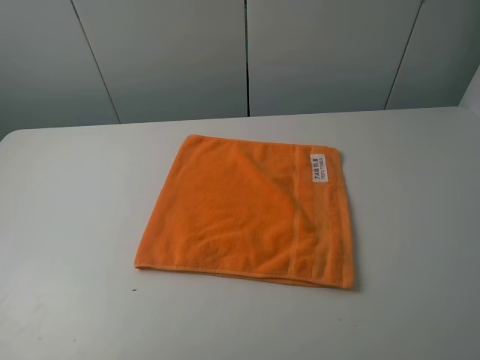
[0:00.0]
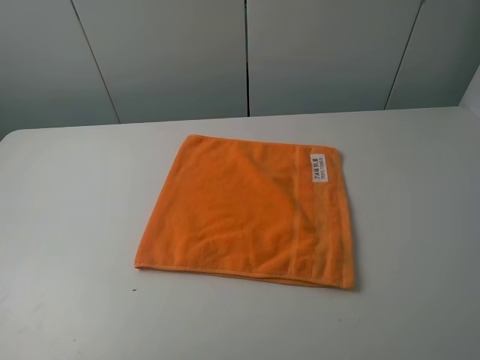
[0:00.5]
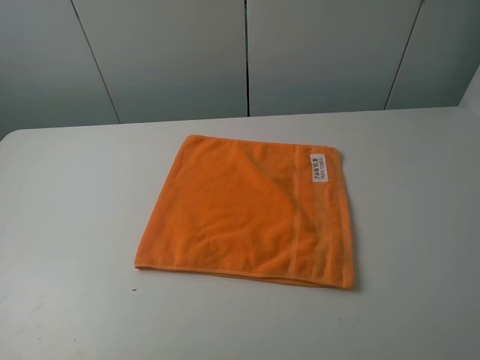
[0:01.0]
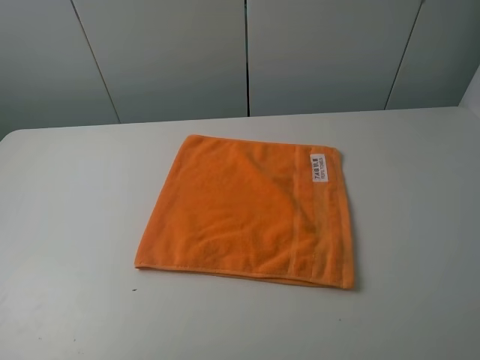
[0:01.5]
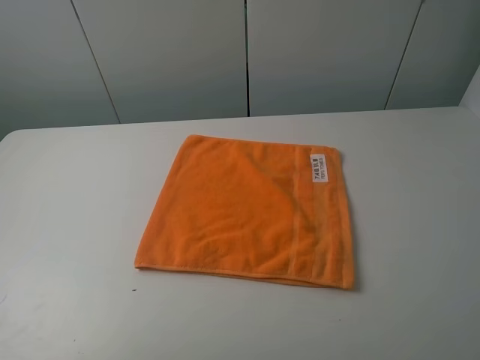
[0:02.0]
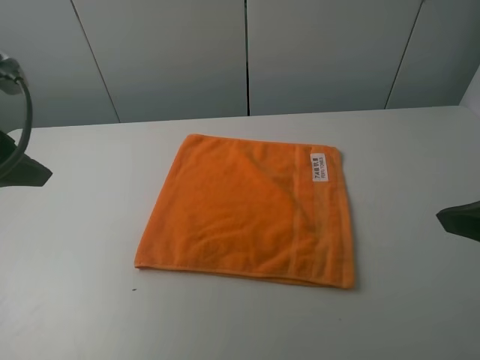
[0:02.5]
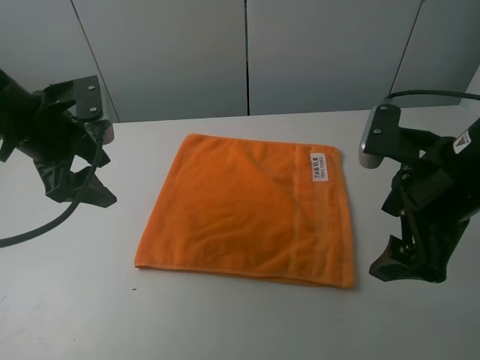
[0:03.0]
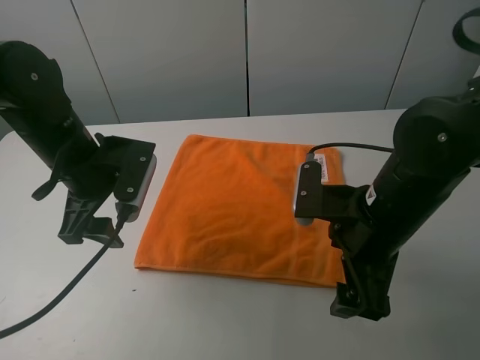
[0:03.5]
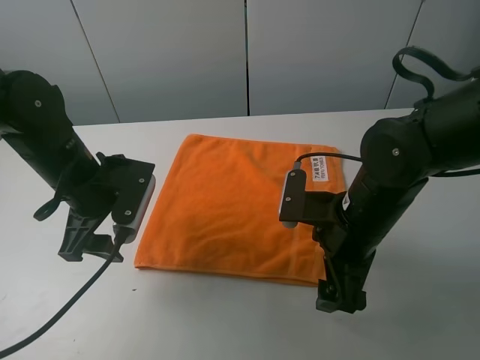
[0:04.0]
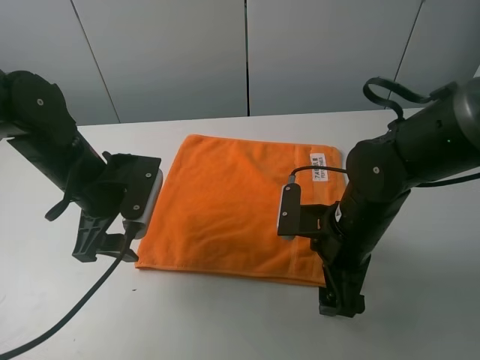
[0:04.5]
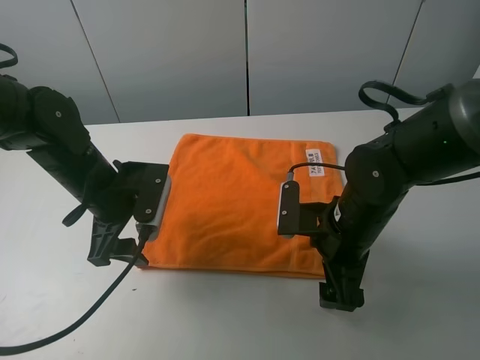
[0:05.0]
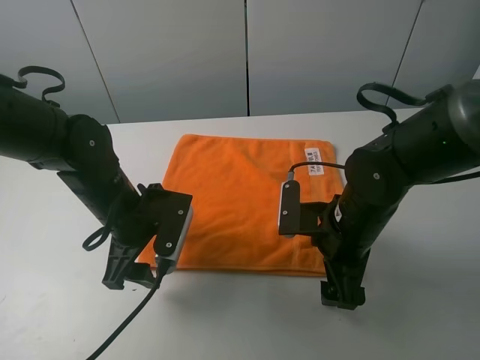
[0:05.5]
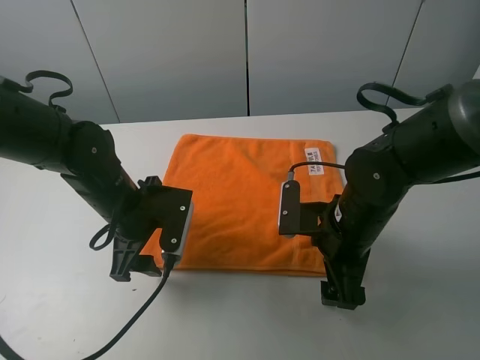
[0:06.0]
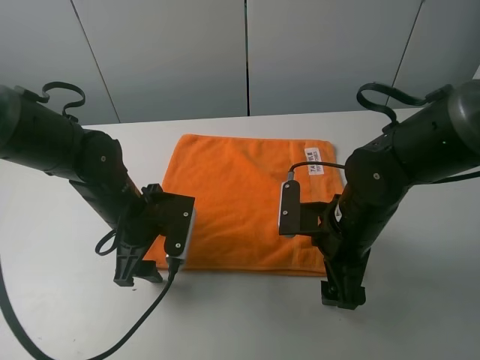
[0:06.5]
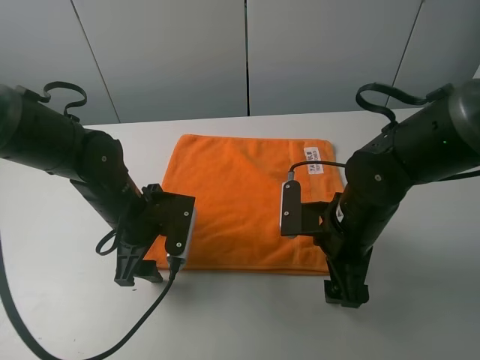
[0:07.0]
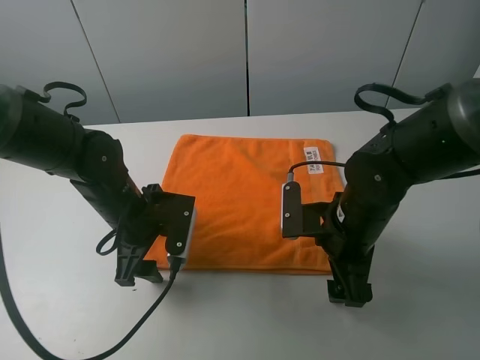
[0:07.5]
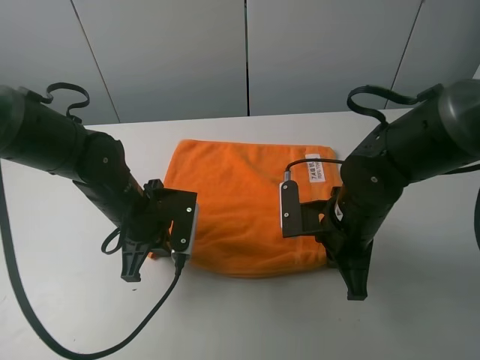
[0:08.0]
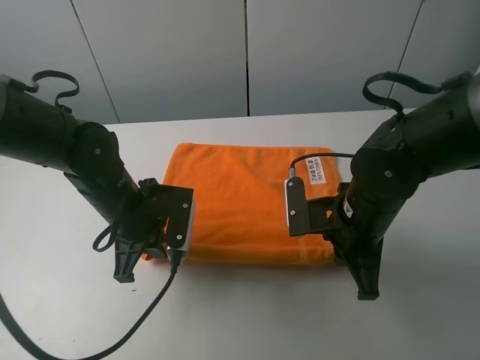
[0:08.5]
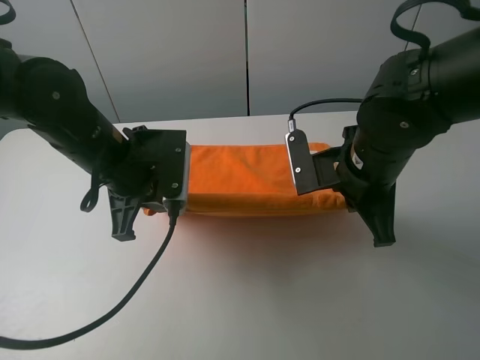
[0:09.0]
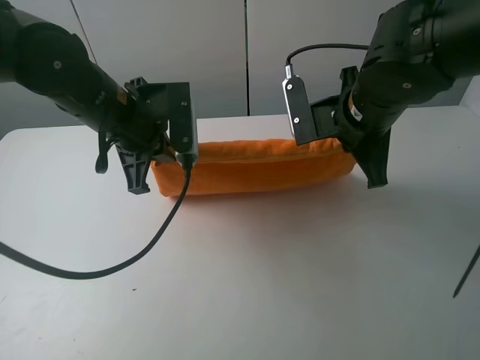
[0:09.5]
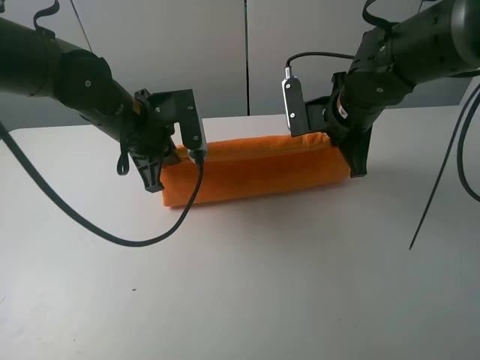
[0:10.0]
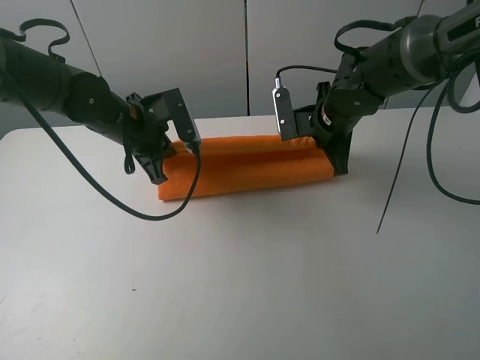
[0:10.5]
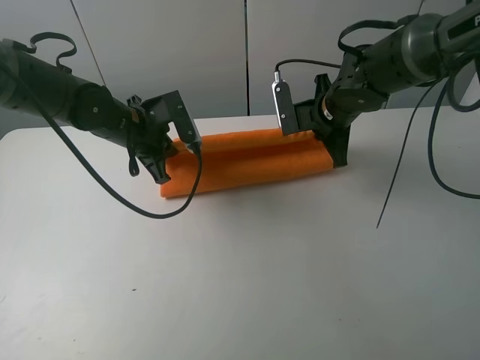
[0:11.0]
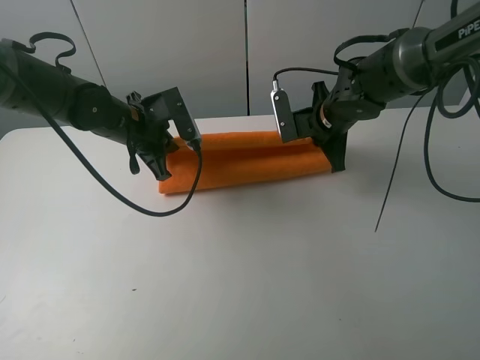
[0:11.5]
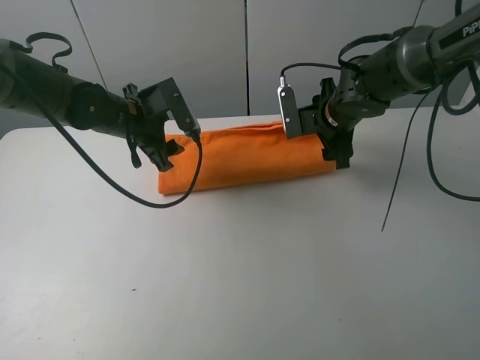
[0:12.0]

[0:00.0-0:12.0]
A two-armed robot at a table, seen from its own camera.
Task of the whole recording: fold the towels on the table.
Step, 0:00.0 to 0:08.0: Grasp the orange towel with the right gripper.
0:02.0 to 0:04.0: The left gripper goes about 30 cm forward, downward and to the right, while the right gripper goes approximately 30 cm forward, downward and to the left.
0:04.0 to 0:06.0: The left gripper changes place by about 5 cm.
0:06.0 to 0:08.0: The right gripper closes its fingers, while the left gripper closes up.
0:08.0 to 0:10.0: The left gripper is displaced upward and forward by approximately 10 cm, while the right gripper heads forward and upward, covering approximately 15 cm.
0:10.0 to 0:12.0: The left gripper shifts by roughly 5 cm, and opens its fingers. Meanwhile the right gripper goes some 5 cm forward, and opens.

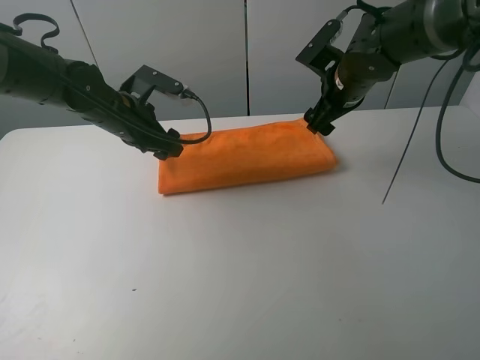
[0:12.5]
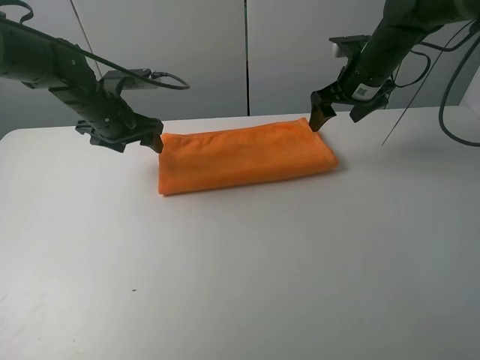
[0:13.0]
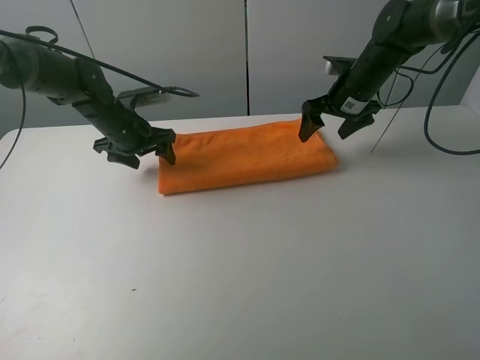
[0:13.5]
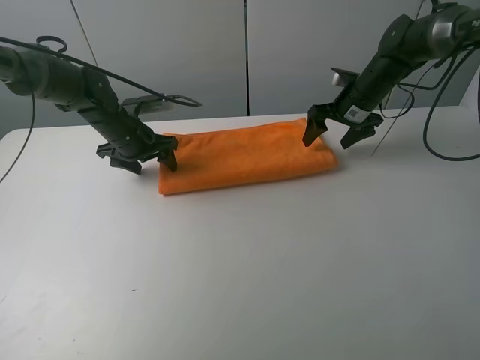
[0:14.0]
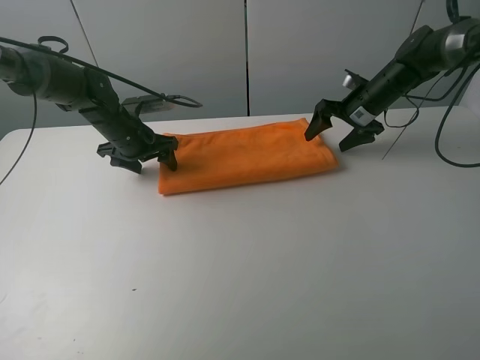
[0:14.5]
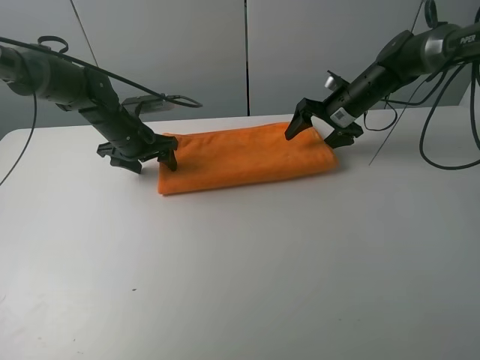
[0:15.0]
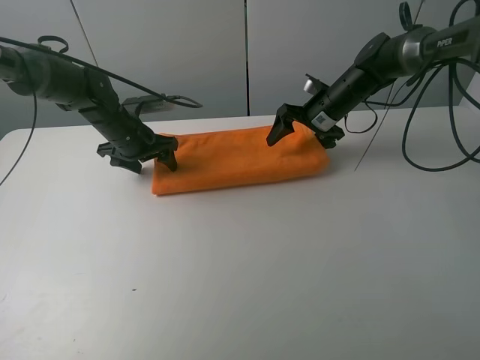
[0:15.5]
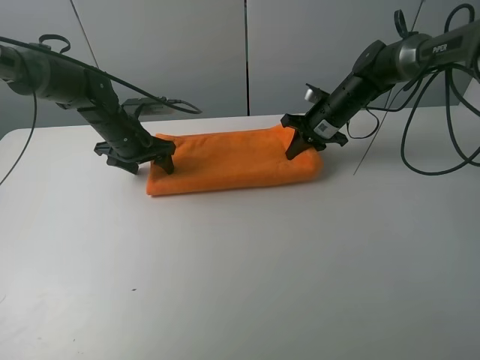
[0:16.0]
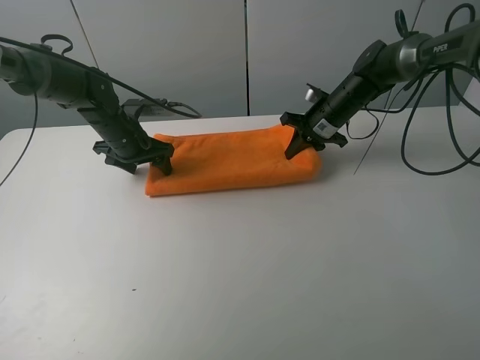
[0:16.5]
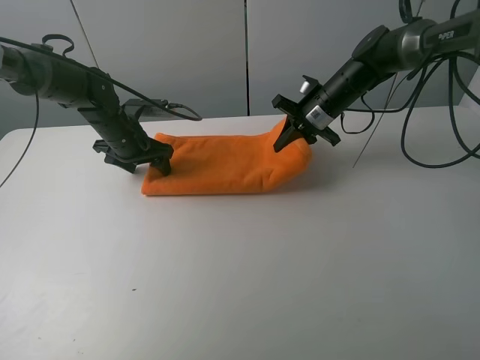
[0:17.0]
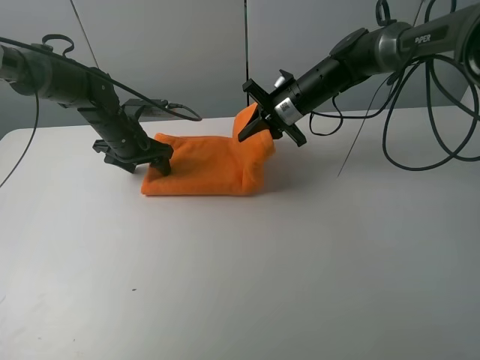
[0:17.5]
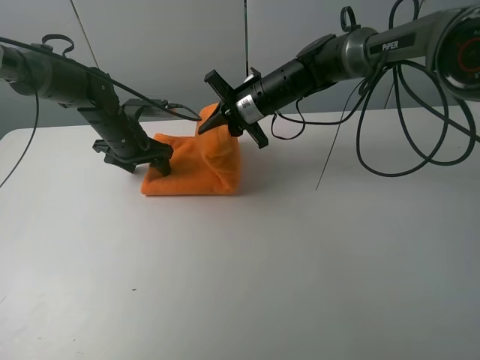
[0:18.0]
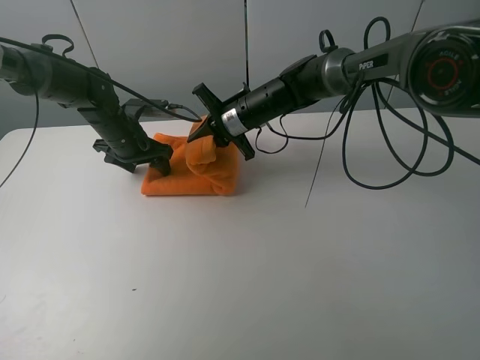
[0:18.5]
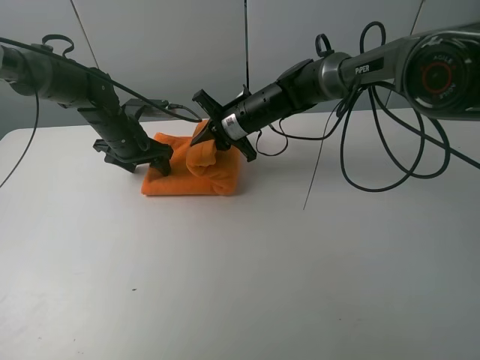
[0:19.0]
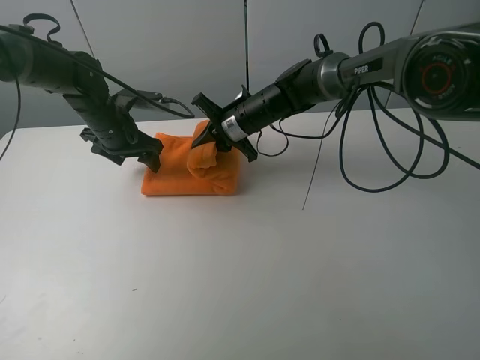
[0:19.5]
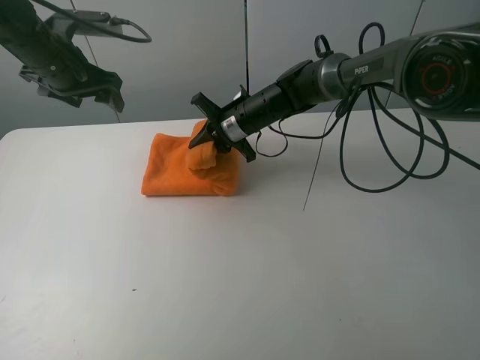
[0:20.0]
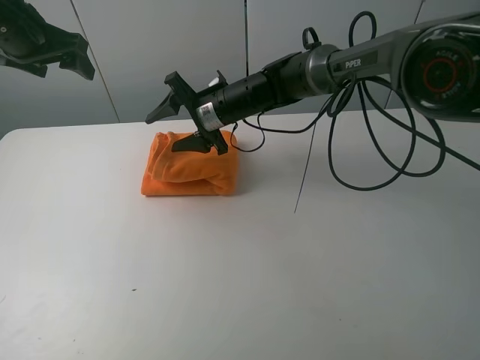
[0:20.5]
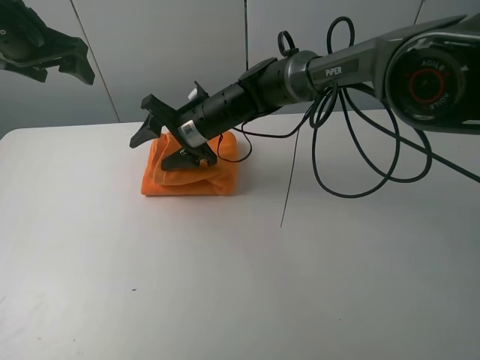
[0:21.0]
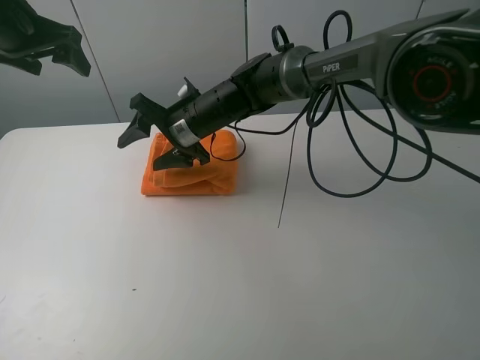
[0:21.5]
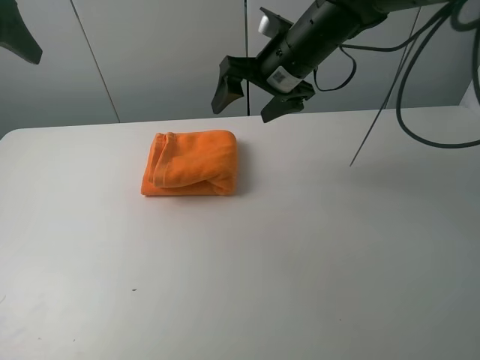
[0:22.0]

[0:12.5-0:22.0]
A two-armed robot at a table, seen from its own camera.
Task of the whole recording: fold the towels on the table.
Step, 0:12.5 to 0:13.5: Press on the orange towel with the left gripper.
Step, 0:14.0 to 0:20.0: Fold the orange towel from right to left with right gripper.
Step, 0:20.5 to 0:21.5: Arrange the orange towel with the right hand.
0:12.5 to 0:14.5: The right gripper heads downward, to the right and forward, covering about 15 cm. The left gripper goes roughly 5 cm downward.
0:14.5 to 0:16.5: The right gripper shifts roughly 5 cm to the left, and closes its fingers.
0:16.5 to 0:18.0: The right gripper shifts about 15 cm to the left.
0:18.0 to 0:20.0: The left gripper travels upward by approximately 15 cm.
0:20.0 to 0:22.0: The right gripper travels upward, to the right and backward by some 15 cm, and opens its fingers. Meanwhile the left gripper is displaced upward and backward by about 15 cm.

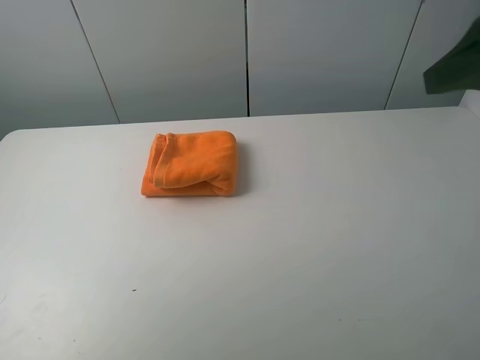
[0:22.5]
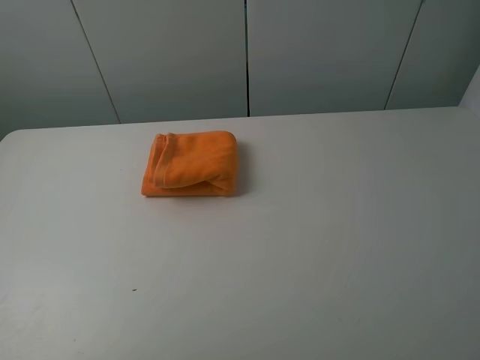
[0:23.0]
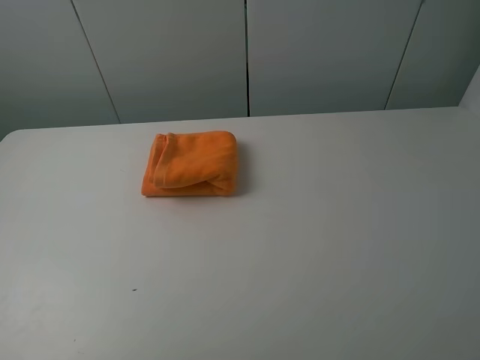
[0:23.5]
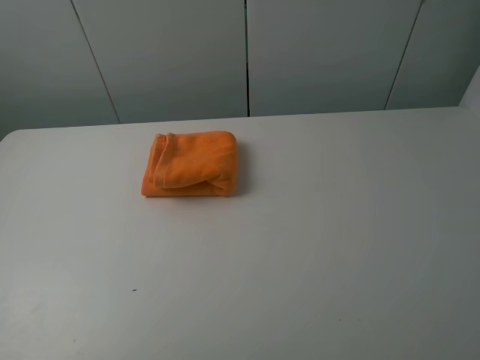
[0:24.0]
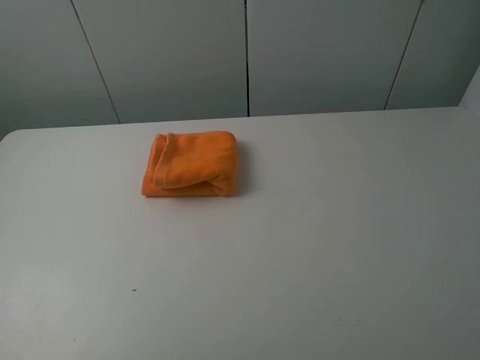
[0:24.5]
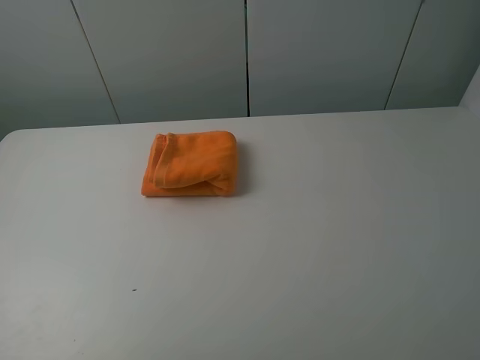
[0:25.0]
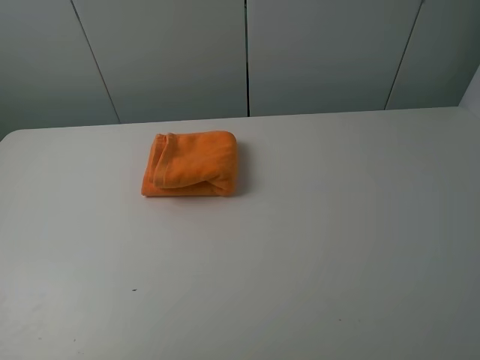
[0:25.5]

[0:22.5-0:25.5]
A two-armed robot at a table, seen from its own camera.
Task of the whole recording: fold the towels on the table.
0:22.5 to 0:24.0: The two grippers go some 15 cm backward and downward.
